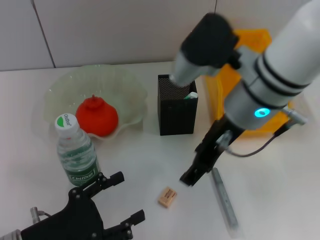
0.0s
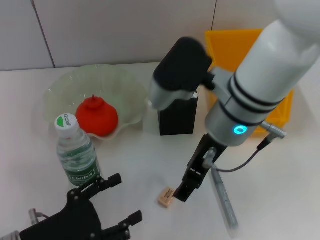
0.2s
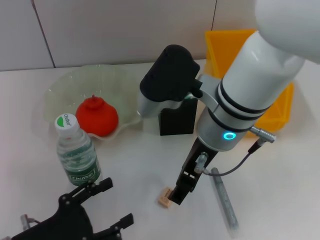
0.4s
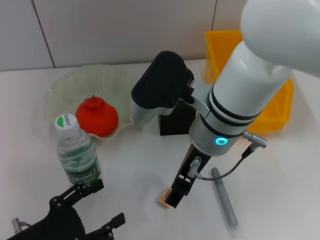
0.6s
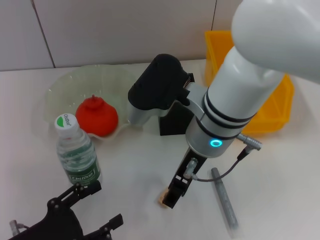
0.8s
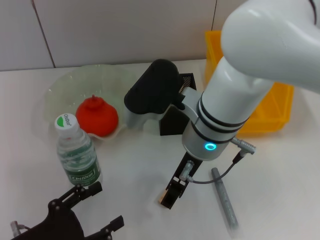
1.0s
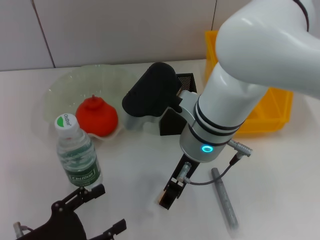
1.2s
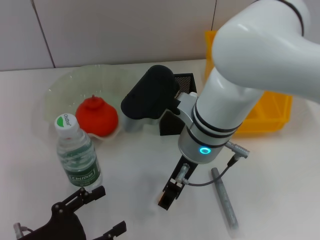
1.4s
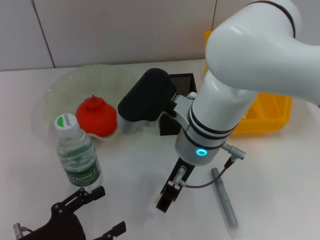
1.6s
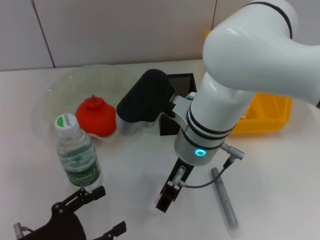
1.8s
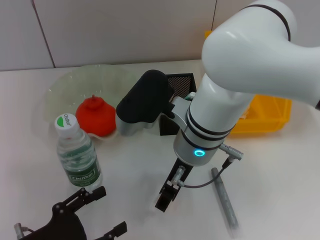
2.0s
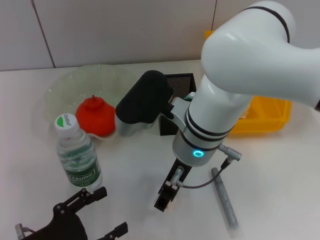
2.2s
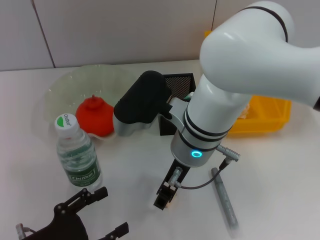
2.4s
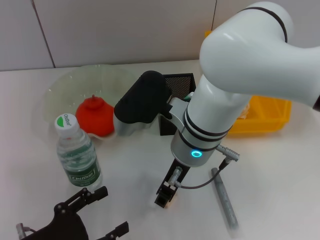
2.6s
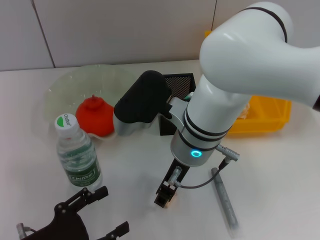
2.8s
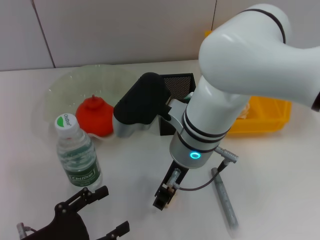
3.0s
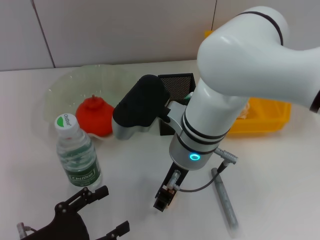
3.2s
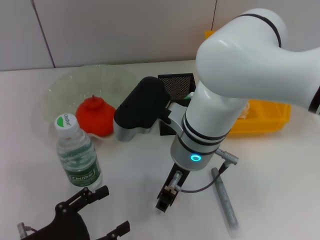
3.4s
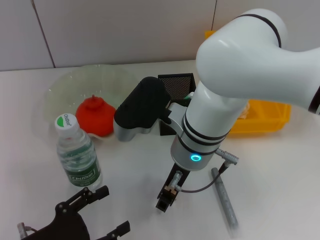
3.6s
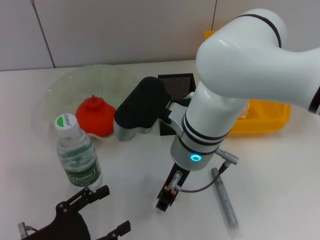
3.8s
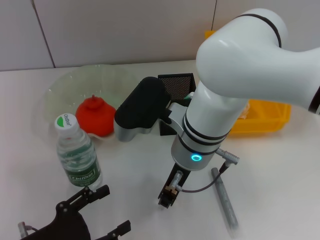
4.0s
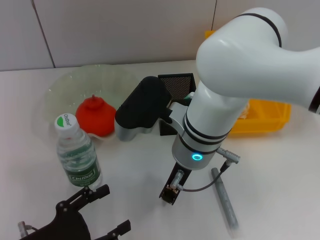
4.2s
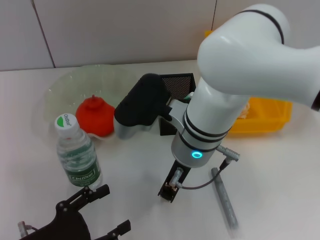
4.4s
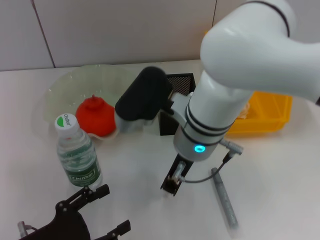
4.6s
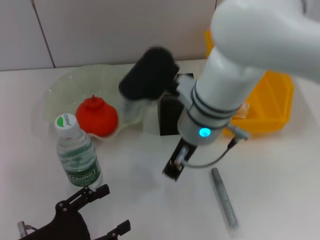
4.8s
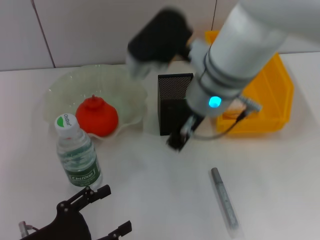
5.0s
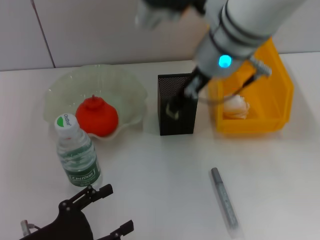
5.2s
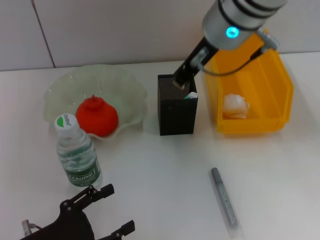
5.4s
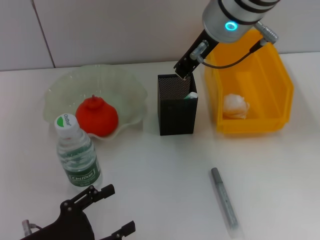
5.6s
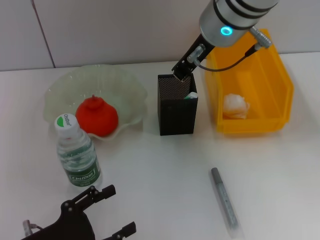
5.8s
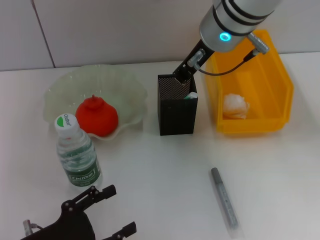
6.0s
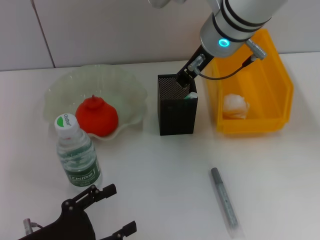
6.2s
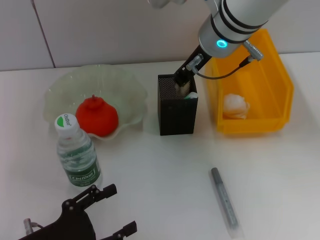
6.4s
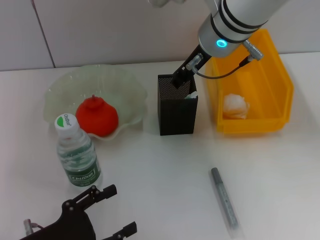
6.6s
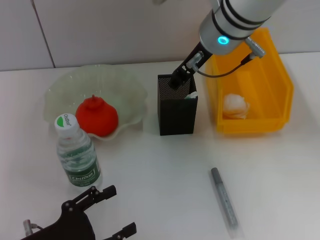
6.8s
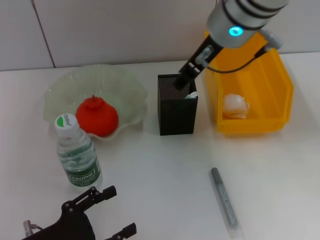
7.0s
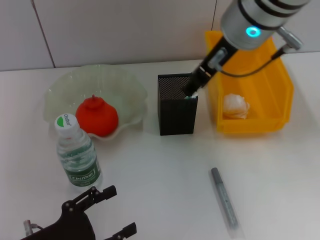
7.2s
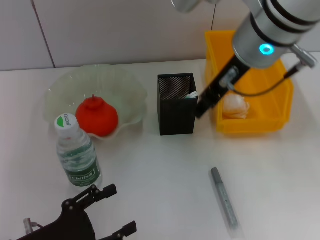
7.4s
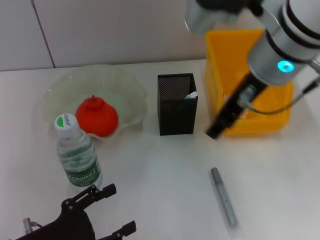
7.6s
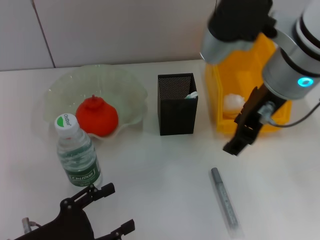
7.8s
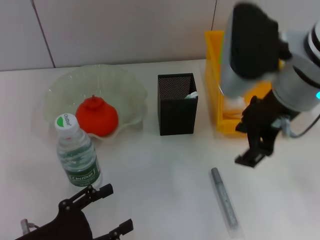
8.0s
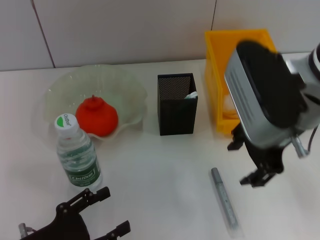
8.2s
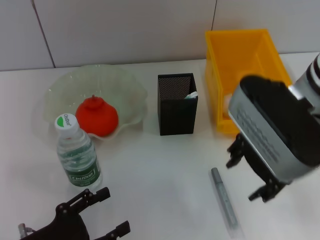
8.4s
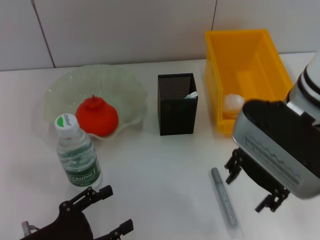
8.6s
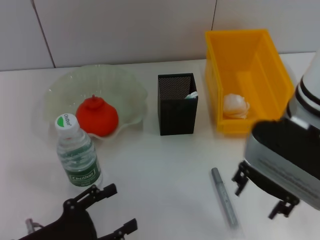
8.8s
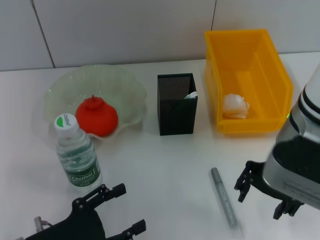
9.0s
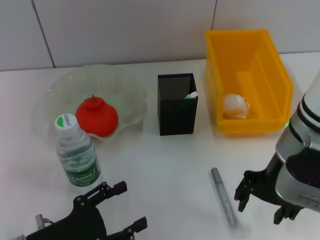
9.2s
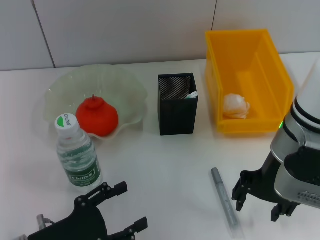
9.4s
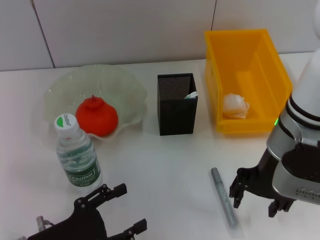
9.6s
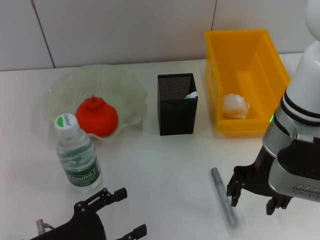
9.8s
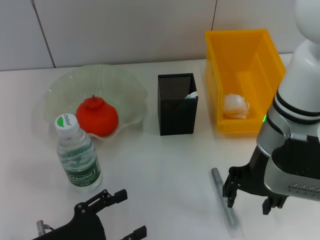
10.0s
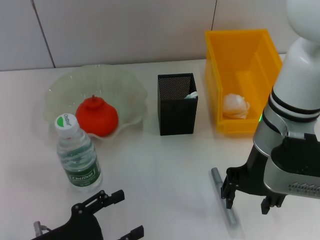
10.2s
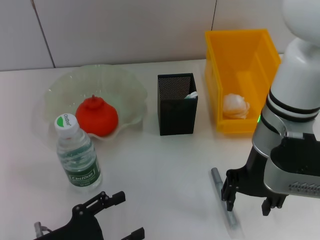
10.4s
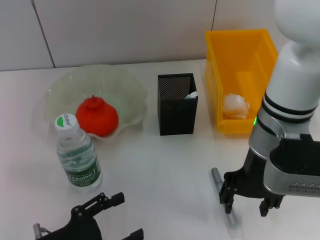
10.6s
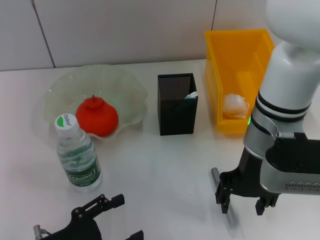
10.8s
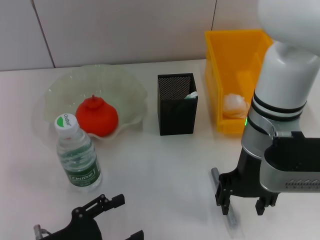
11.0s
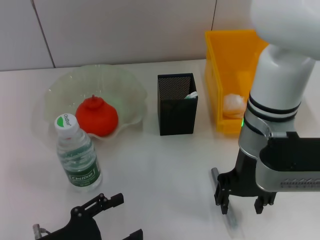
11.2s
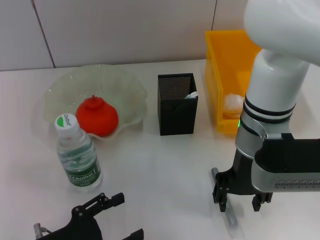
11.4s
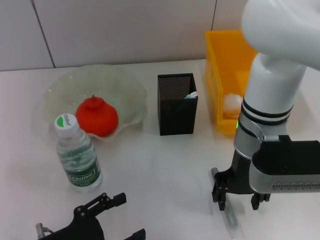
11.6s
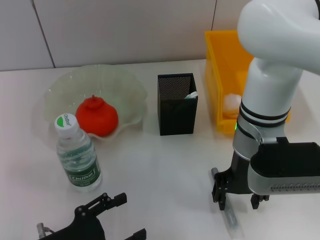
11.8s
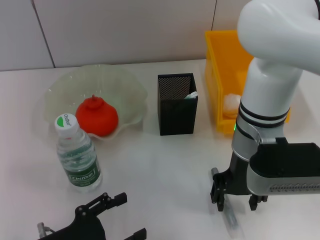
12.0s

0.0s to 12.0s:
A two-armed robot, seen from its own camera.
Step, 0.0s to 4.0s: Grab the eraser with the right hand.
Step, 4.2s to 6.6s: Put the eraser into the pen holder with the right hand.
0.0s to 1.6s: The right gripper shifts about 10 cm to the left and downward.
1.6s to 3.0s: The right gripper closes.
3.0s to 4.4s: The right gripper closes.
4.4s to 6.0s: The right gripper shifts roughly 15 cm upward and forward.
6.0s to 7.6s: The right gripper shifts some 5 cm backward, and opens up.
7.6s to 9.0s: The right gripper shifts approximately 10 cm downward.
10.4s to 12.0s: There are only small adjustments of the grippers.

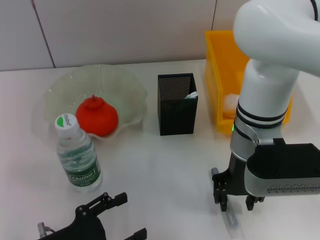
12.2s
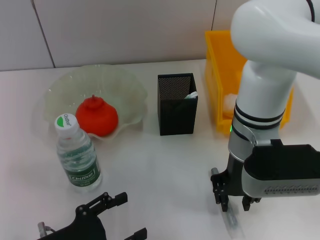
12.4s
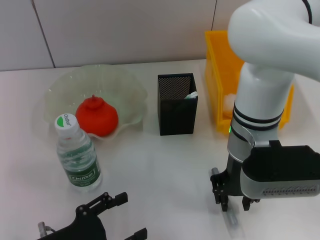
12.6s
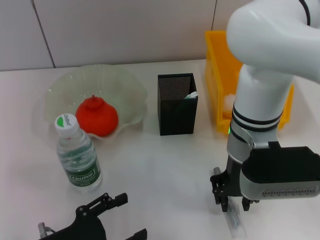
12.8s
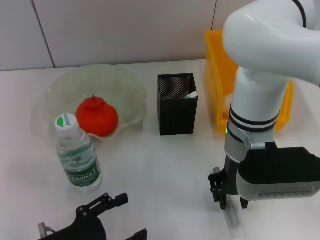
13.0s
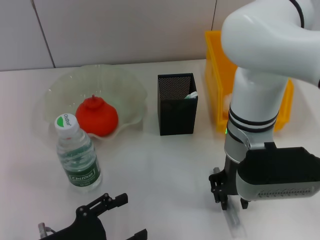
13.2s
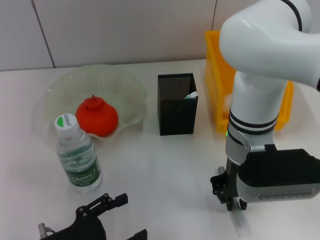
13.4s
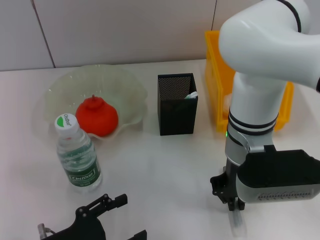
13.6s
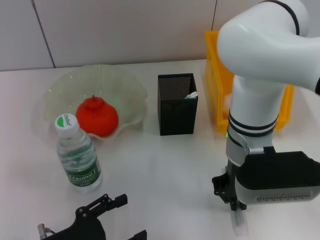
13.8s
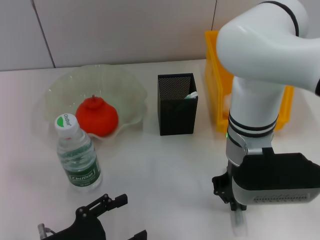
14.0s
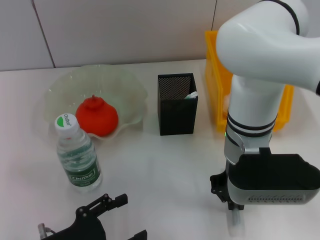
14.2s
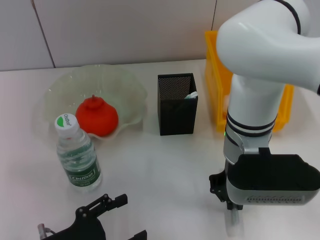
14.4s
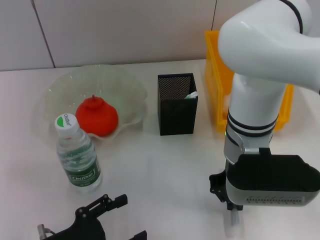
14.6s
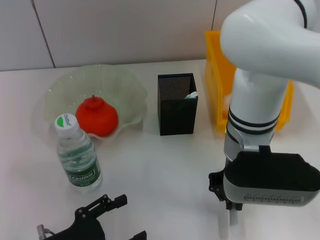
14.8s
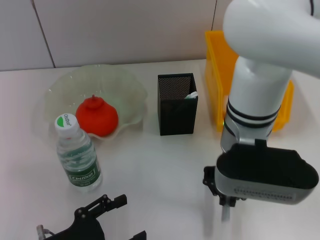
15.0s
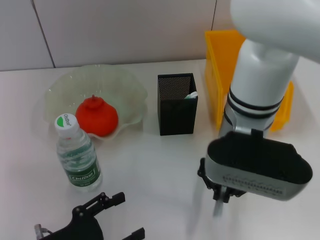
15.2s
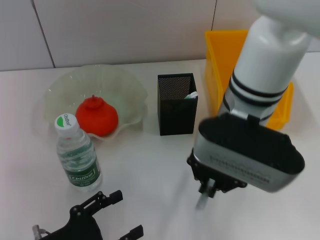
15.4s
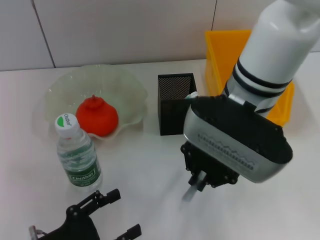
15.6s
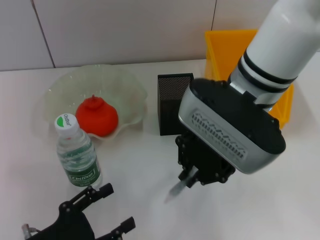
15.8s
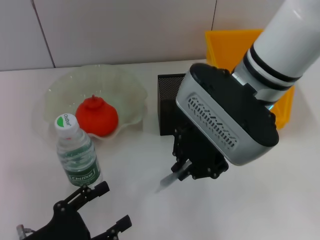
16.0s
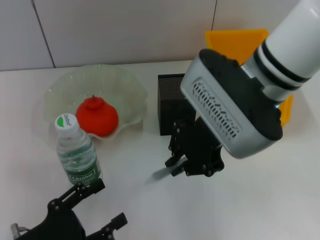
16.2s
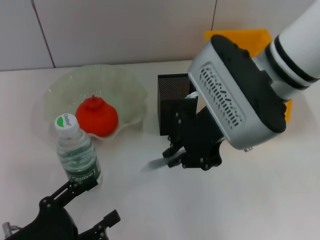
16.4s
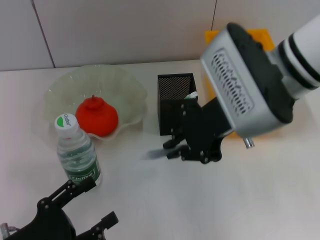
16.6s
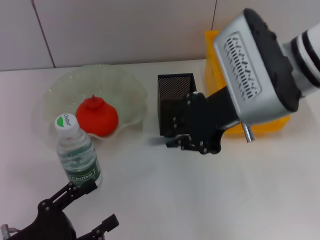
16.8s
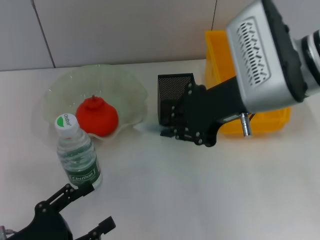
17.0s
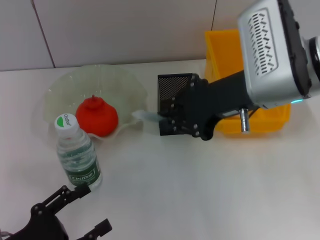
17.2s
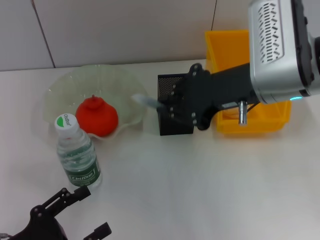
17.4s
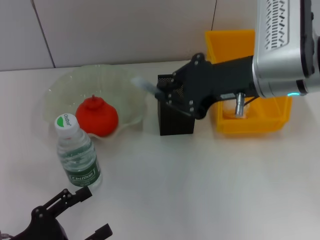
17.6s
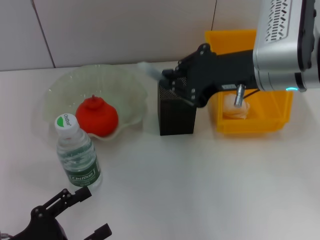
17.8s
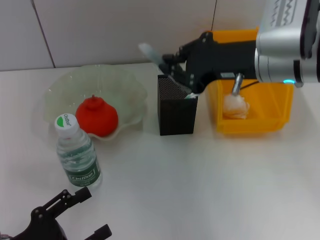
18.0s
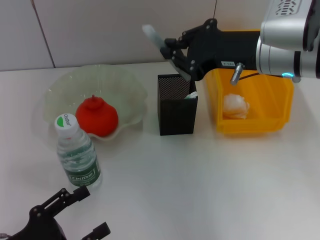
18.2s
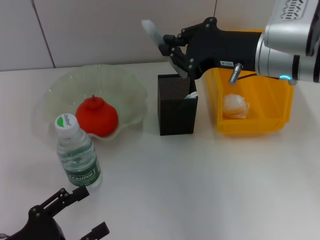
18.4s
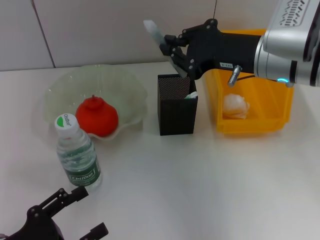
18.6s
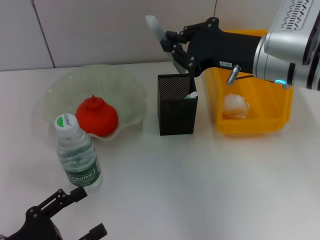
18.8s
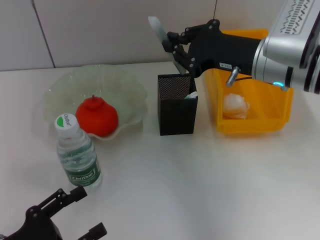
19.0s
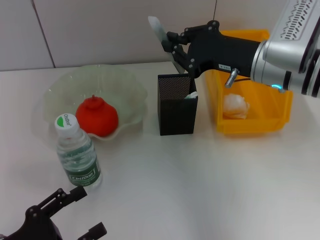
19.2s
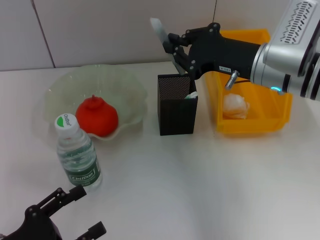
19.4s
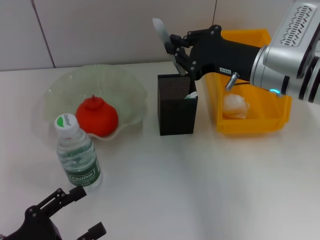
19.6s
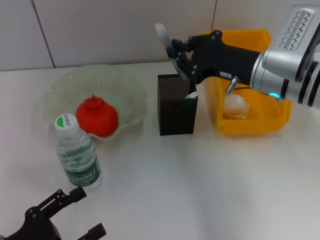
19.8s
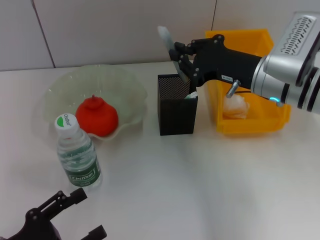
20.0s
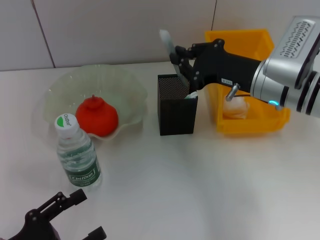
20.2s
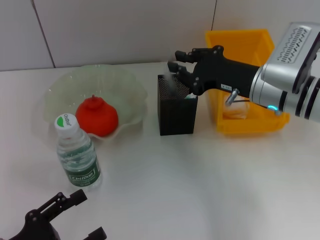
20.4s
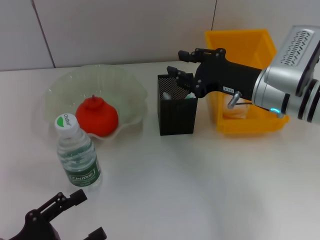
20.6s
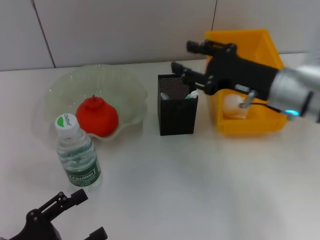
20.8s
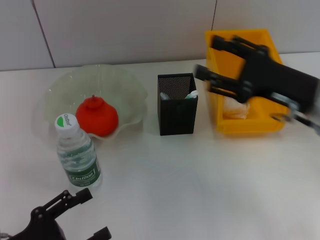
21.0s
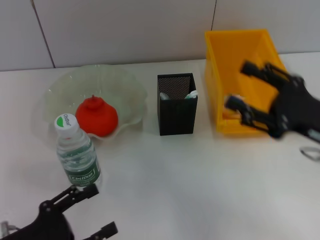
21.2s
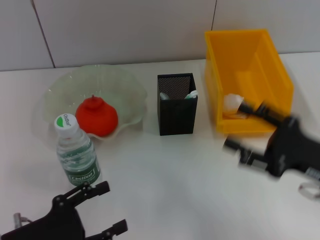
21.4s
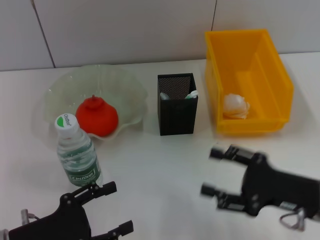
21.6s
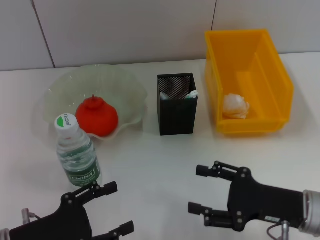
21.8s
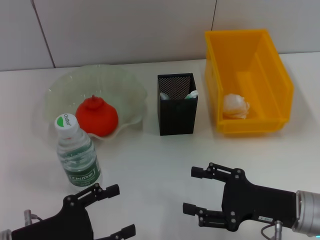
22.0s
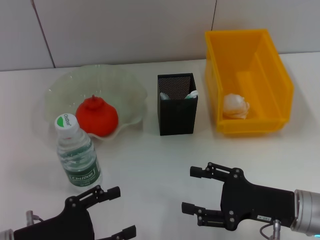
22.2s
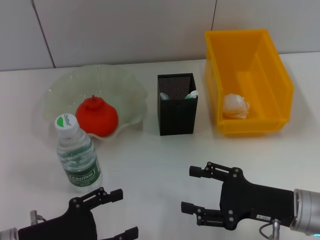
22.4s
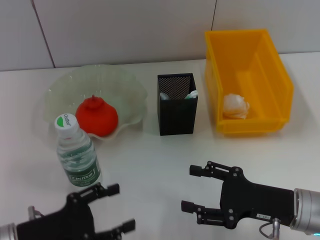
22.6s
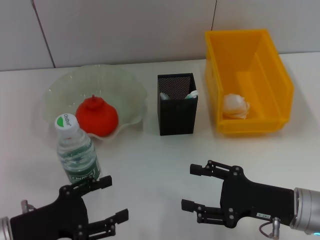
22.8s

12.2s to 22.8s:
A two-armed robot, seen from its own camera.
Step, 14.0s to 20.6s: Place the gray glue into the pen holder with the right hand.
12.2s to 13.8s: The right gripper closes.
13.8s to 15.2s: The right gripper travels upward by some 5 cm.
15.2s to 16.8s: The right gripper ends up about 5 cm from where it was.
16.8s to 18.2s: The right gripper shifts by roughly 5 cm.
18.2s to 19.8s: The right gripper goes about 5 cm downward.
19.8s to 21.2s: The right gripper travels backward and to the right by about 15 cm, and opens.
21.2s to 22.8s: The right gripper is displaced downward by about 10 cm.
